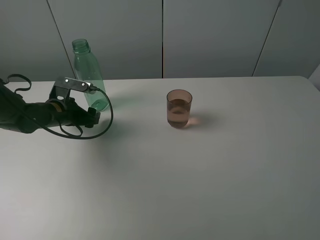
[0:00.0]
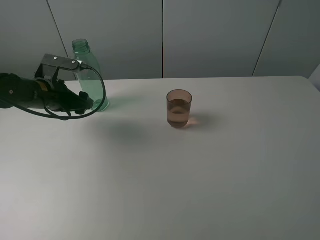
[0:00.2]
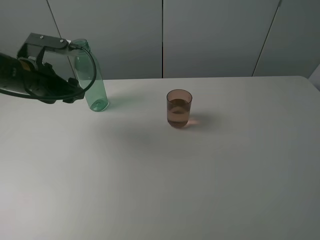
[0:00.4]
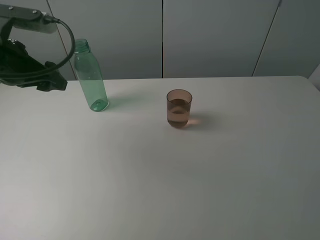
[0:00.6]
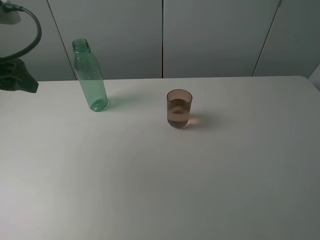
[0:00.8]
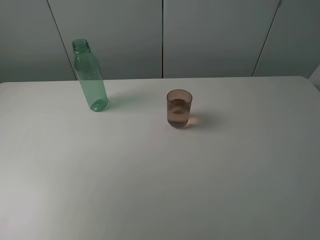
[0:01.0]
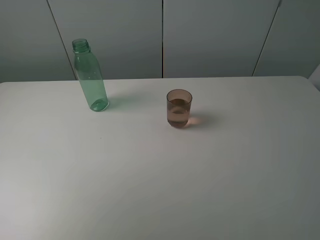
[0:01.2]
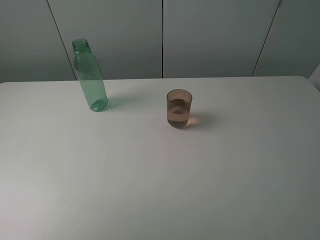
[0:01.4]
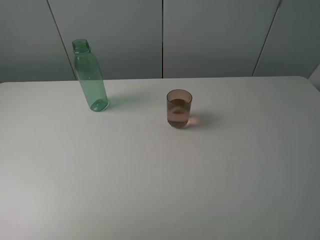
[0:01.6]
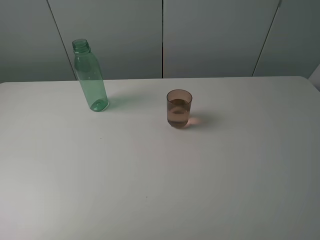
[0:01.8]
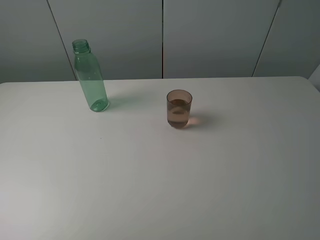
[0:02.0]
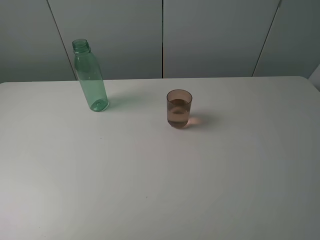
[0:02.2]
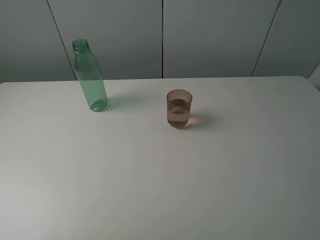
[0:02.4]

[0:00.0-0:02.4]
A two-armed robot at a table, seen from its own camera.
Task of the whole recording: pick up the bottle filled with water and pour it into the pink cup.
0:00.0 to 0:01.2: The left gripper travels upward and backward by some 30 cm.
